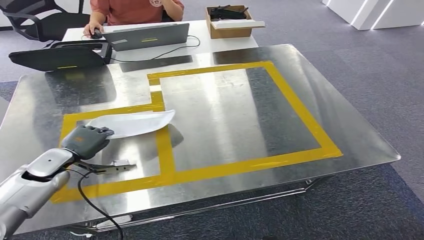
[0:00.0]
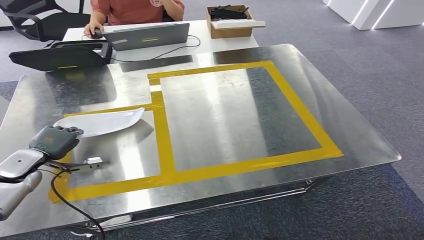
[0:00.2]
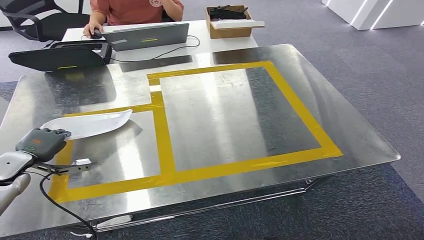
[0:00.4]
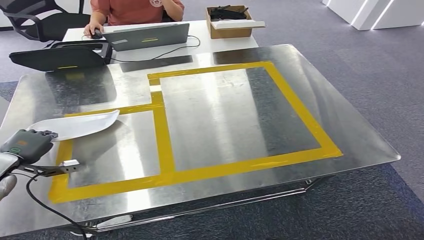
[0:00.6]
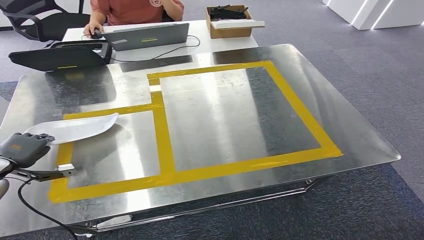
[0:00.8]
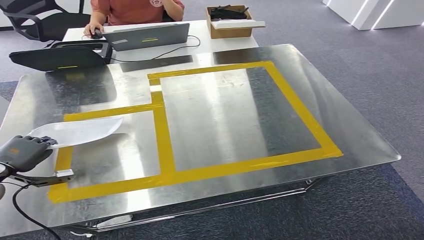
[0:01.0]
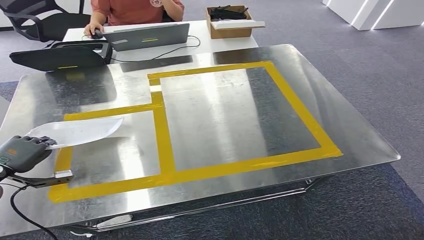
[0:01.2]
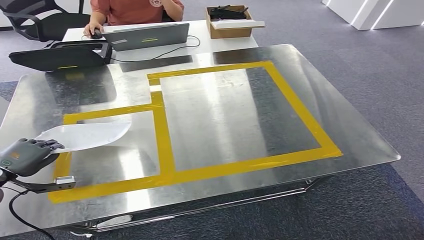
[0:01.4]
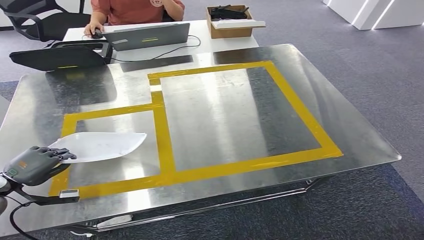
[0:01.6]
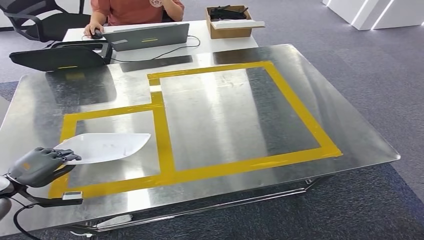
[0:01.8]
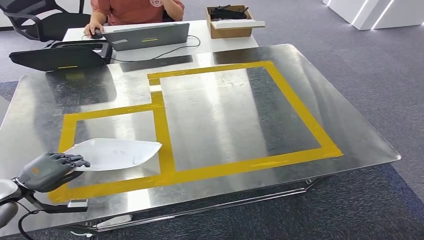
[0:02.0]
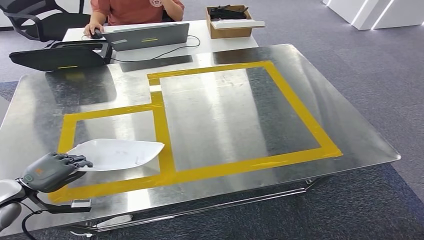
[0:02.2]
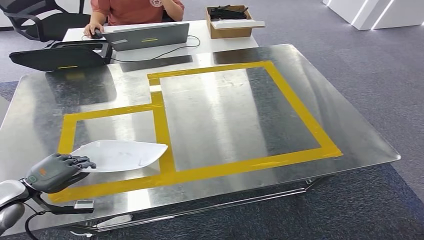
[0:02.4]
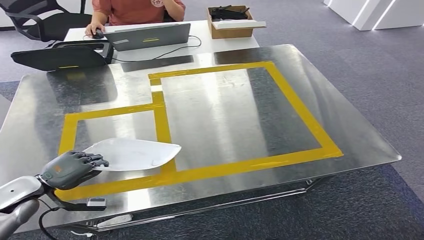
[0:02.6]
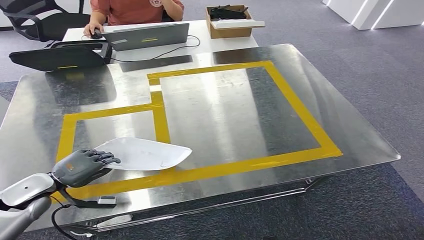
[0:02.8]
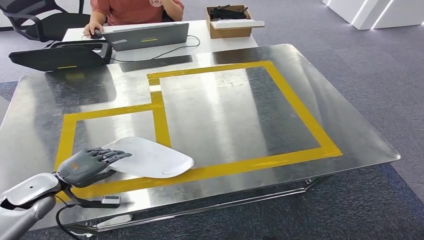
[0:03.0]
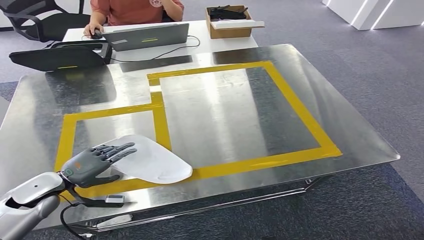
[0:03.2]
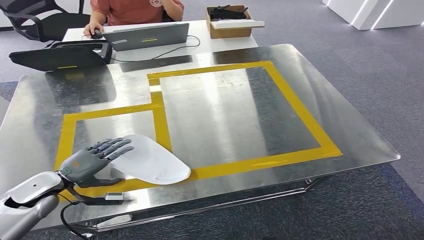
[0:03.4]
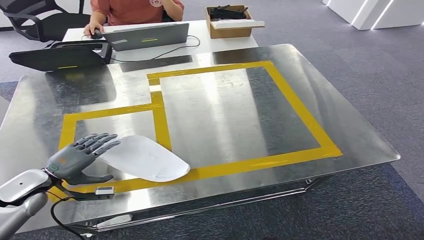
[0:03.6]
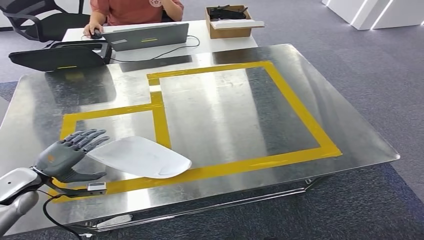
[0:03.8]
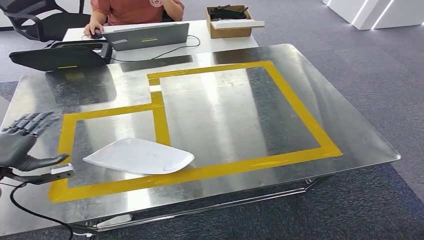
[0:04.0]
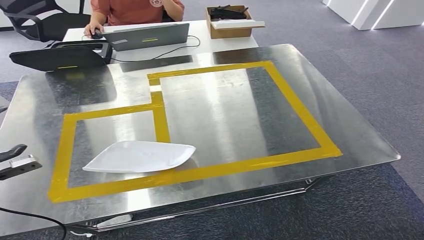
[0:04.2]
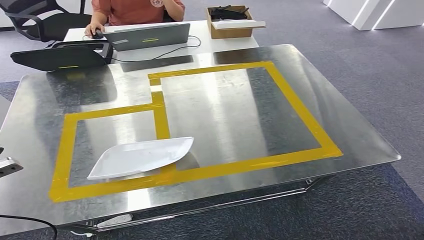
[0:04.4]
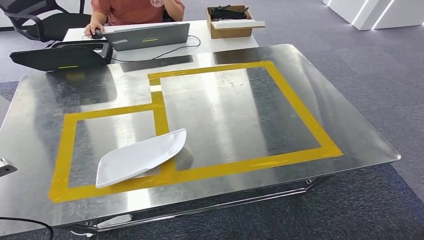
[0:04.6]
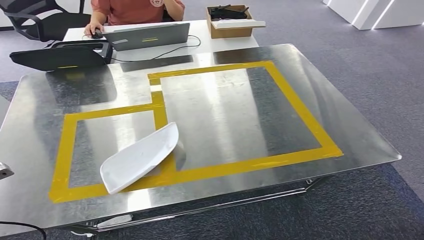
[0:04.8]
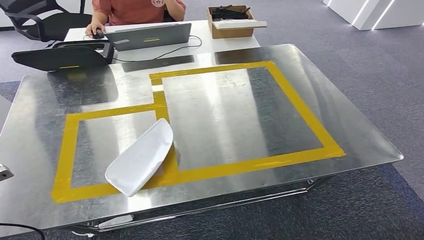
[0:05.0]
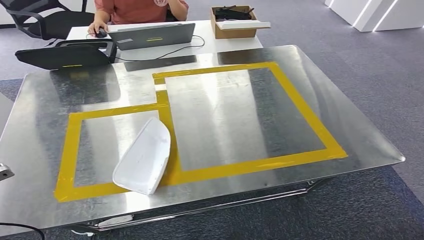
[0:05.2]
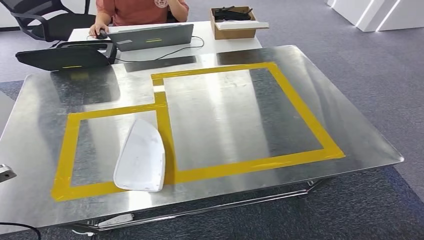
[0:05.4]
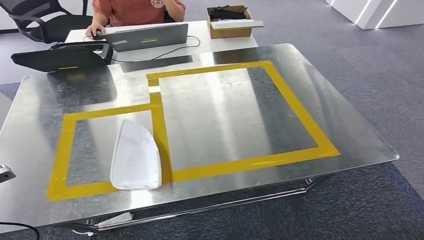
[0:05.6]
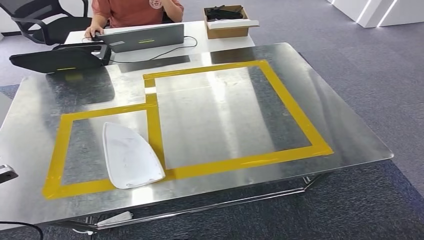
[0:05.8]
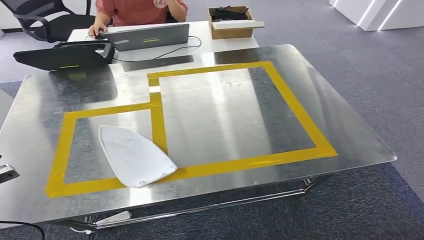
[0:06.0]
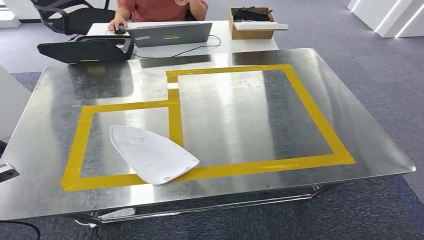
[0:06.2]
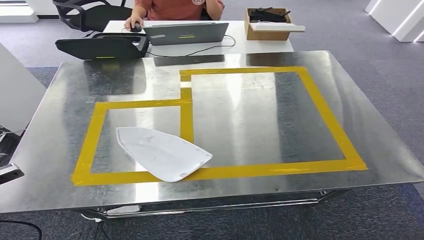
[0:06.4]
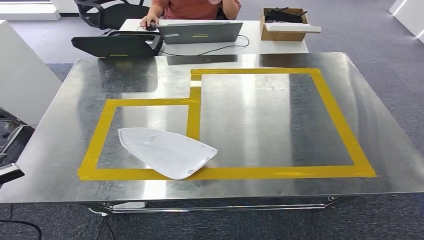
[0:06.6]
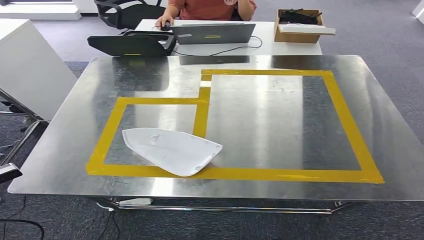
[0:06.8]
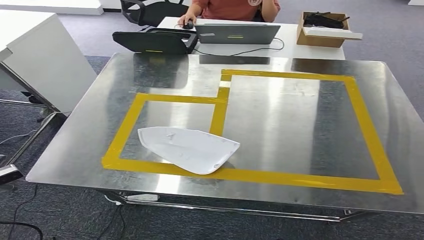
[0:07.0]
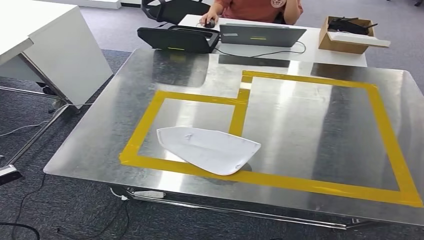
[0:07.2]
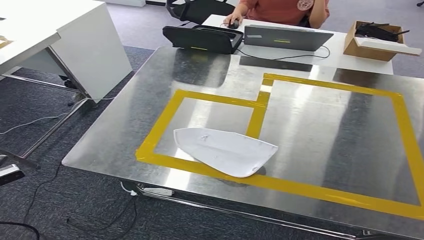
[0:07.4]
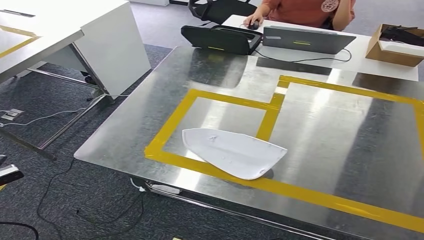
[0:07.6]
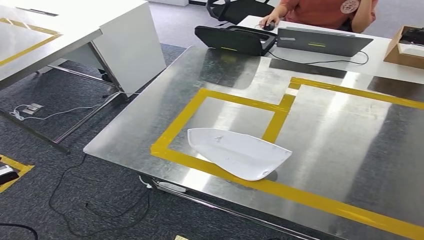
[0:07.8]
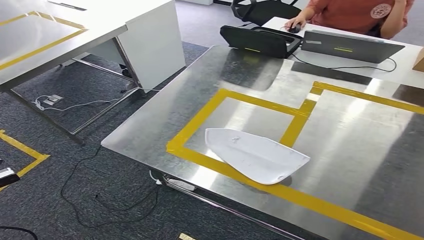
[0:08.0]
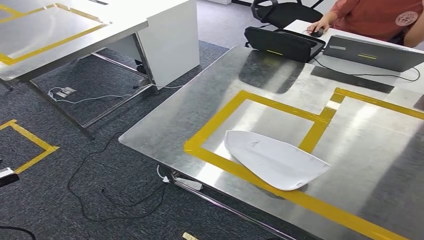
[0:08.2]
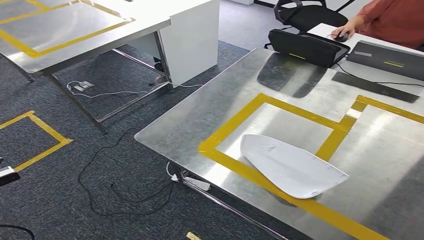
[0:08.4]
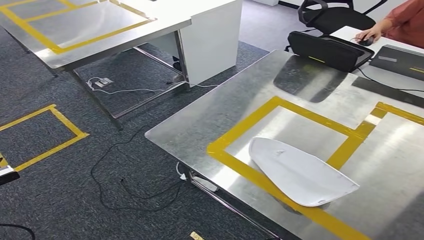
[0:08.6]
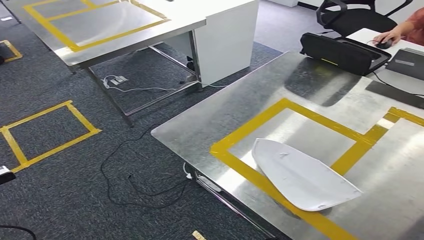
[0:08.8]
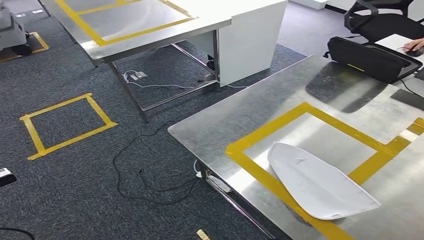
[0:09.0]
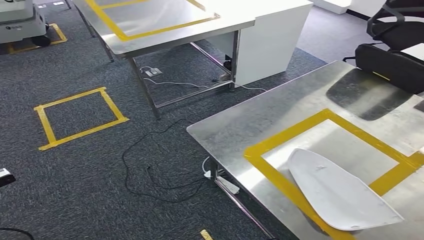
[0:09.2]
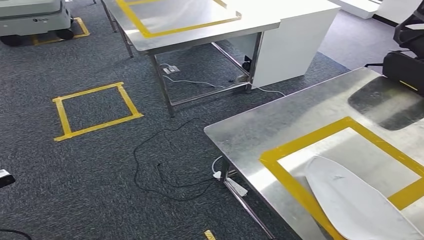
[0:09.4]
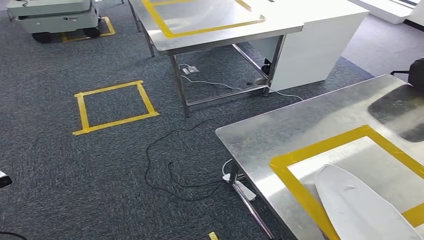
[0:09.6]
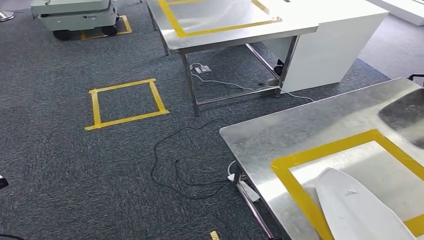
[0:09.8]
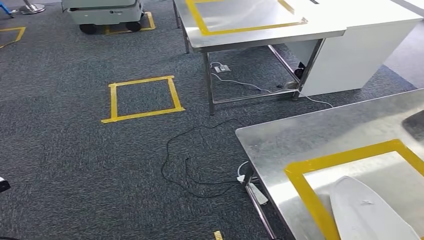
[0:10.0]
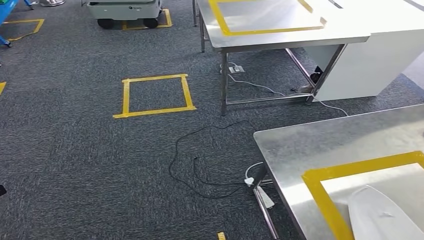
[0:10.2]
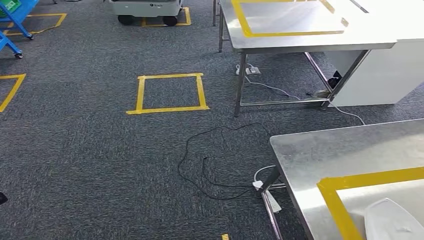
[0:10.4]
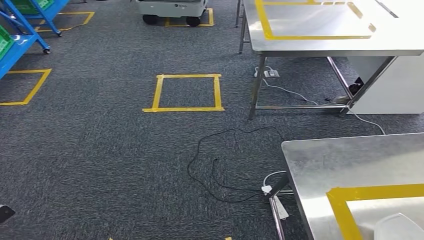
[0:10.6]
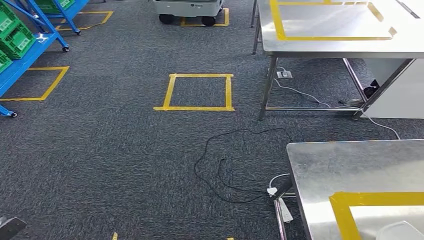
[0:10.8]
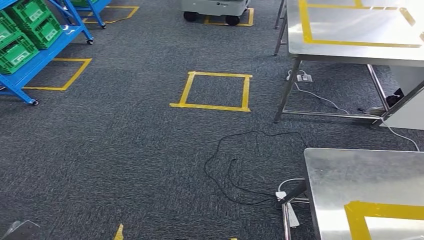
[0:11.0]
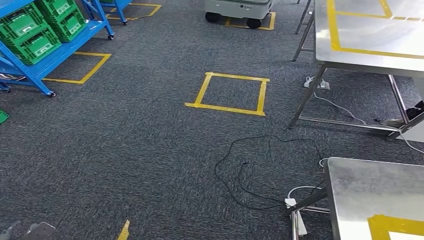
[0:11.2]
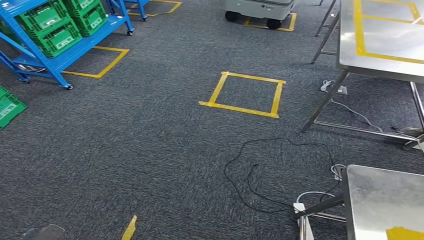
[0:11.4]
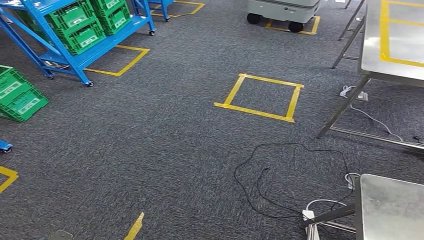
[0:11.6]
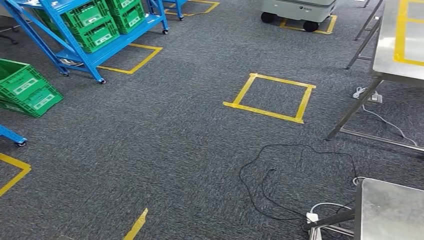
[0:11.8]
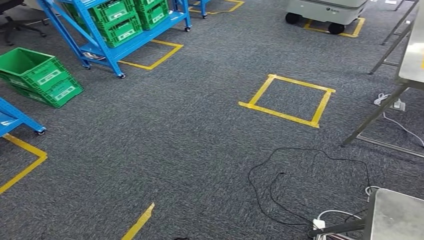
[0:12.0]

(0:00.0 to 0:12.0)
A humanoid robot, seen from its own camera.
Step, 0:00.0 - 0:03.6: Insert the small component into the corresponding slot on the workbench.
0:00.0 - 0:01.6: The left hand is displaced to the left and backward by roughly 15 cm.
0:01.6 - 0:03.0: The left hand is displaced to the right by some 10 cm.
0:03.0 - 0:04.4: The left hand is displaced to the left and upward by some 20 cm.
0:04.4 - 0:06.0: The hands move only a little.

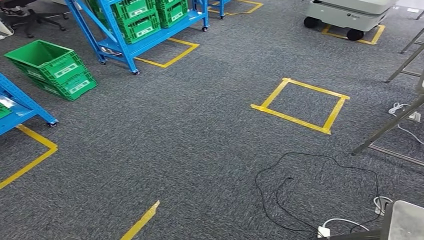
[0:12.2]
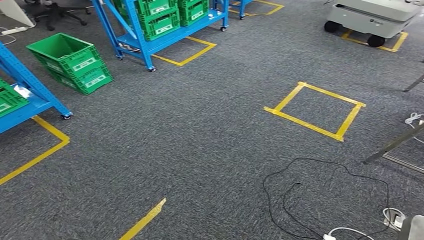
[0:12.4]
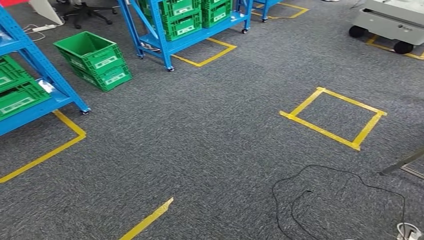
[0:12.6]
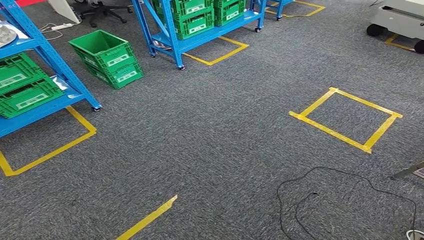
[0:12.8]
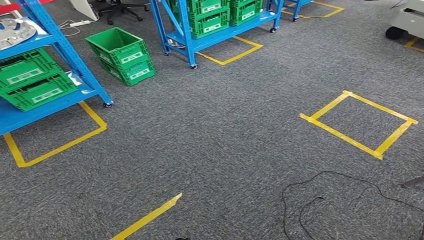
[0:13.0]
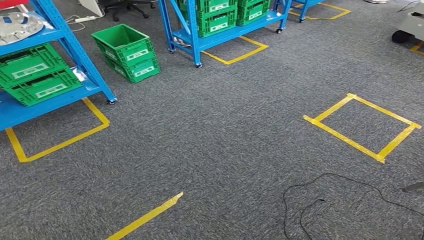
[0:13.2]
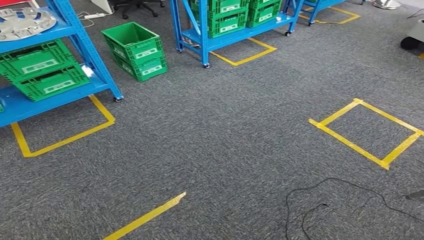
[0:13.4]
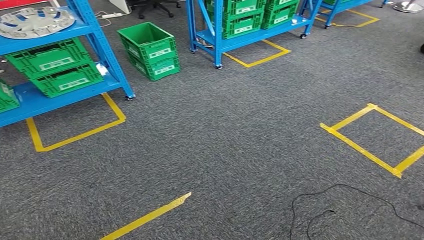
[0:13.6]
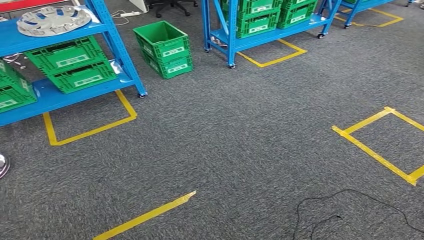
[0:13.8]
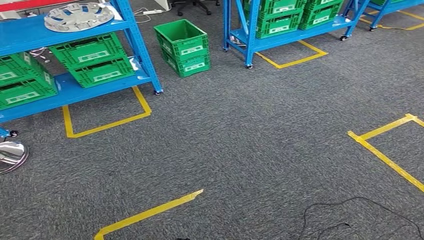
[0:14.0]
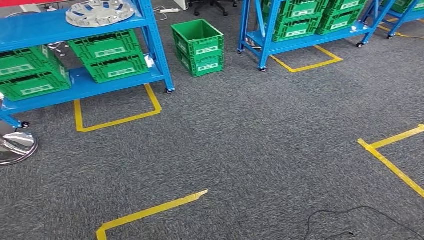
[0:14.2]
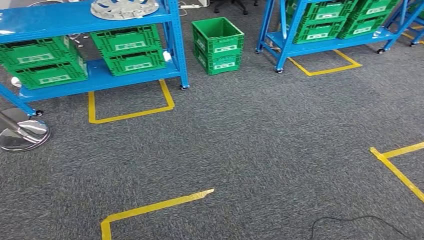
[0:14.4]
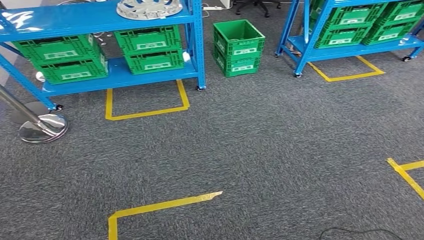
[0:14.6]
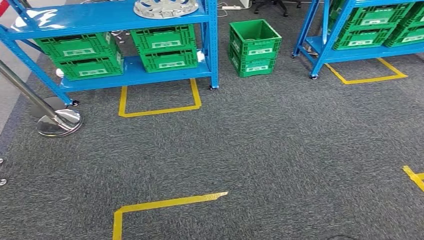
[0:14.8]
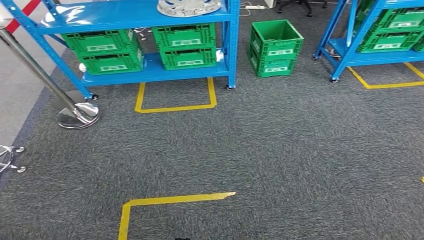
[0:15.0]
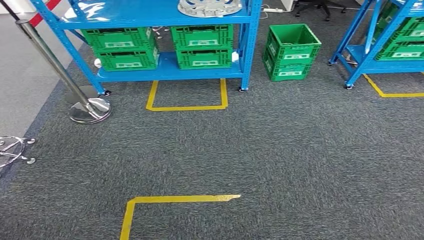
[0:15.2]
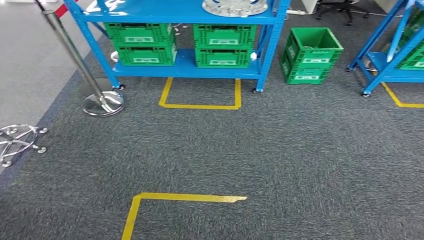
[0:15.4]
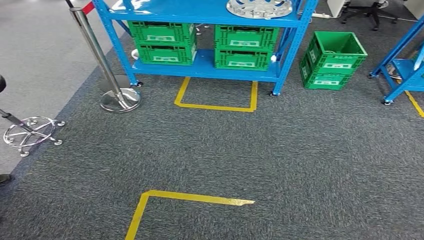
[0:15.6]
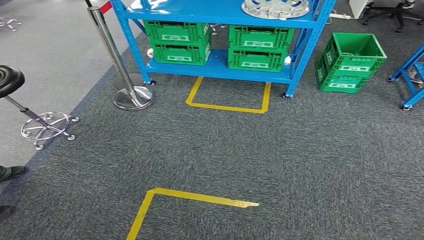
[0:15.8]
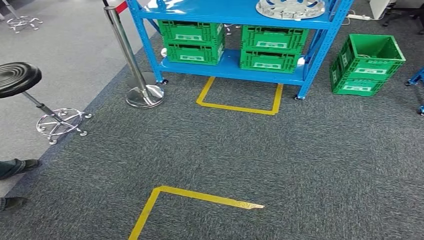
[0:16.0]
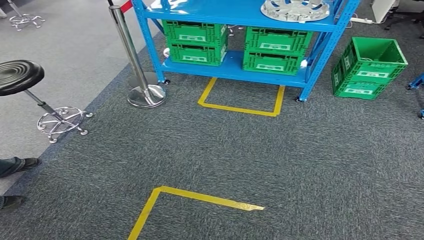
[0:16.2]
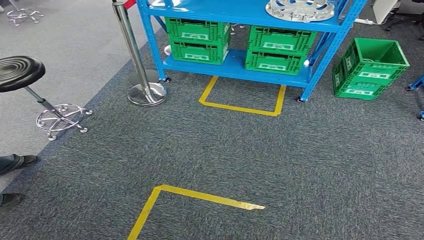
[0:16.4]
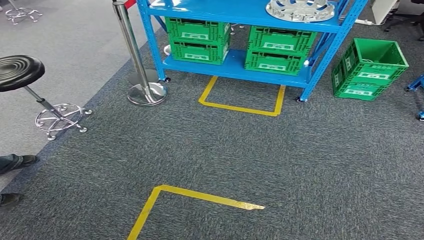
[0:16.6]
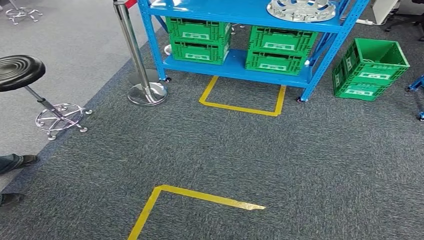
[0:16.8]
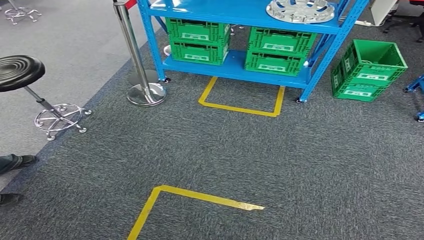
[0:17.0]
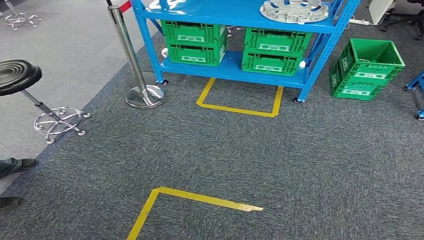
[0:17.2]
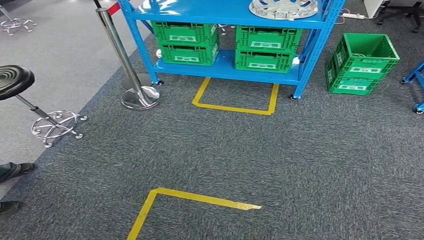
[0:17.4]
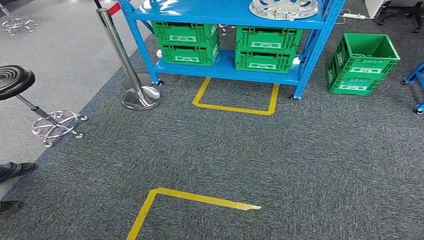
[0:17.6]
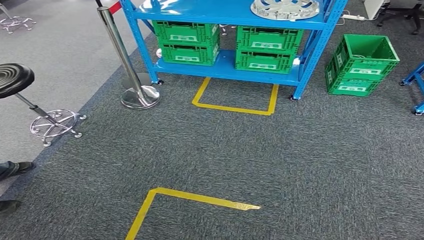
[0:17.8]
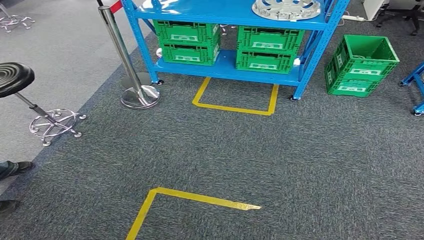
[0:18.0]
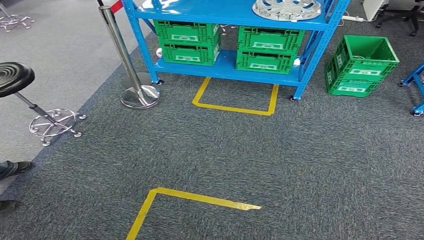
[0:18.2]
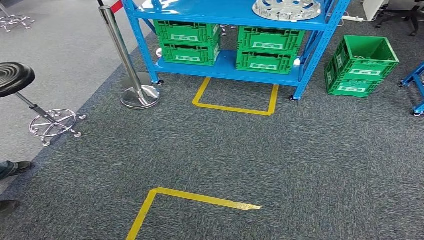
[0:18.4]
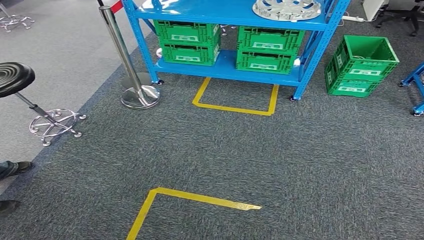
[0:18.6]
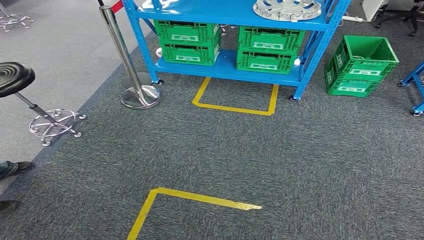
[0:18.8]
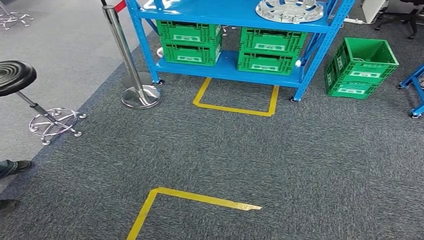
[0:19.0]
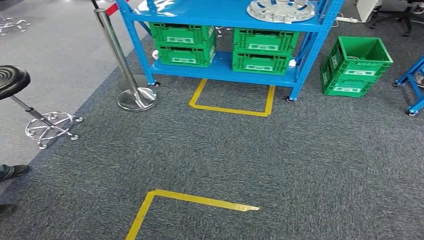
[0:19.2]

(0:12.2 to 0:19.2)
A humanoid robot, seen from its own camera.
0:16.4 - 0:17.8: The two hands keep their place.
0:17.8 - 0:19.2: Both hands stay put.
